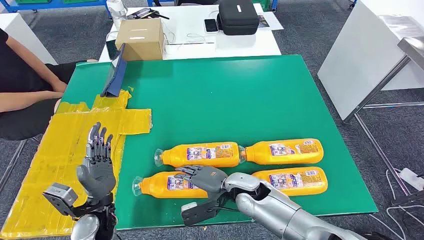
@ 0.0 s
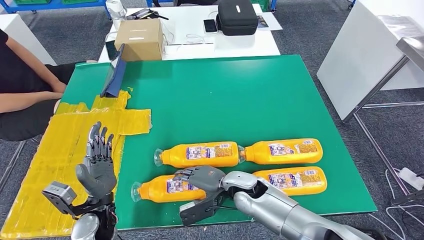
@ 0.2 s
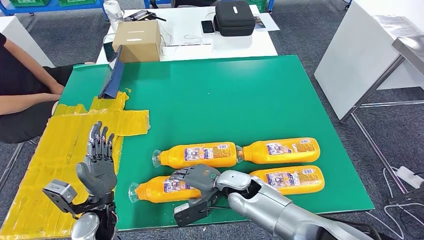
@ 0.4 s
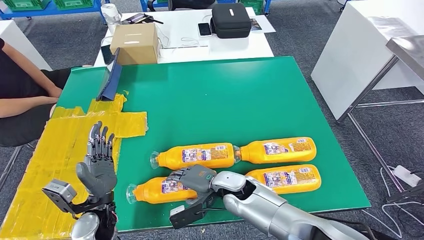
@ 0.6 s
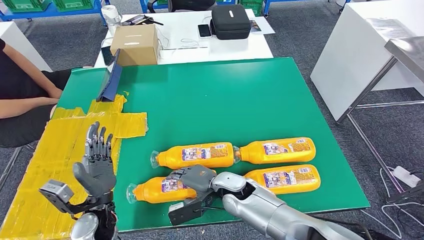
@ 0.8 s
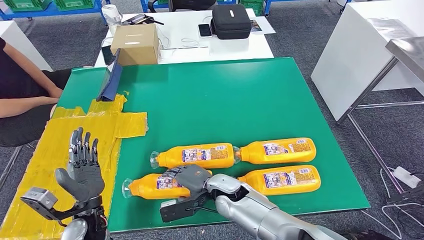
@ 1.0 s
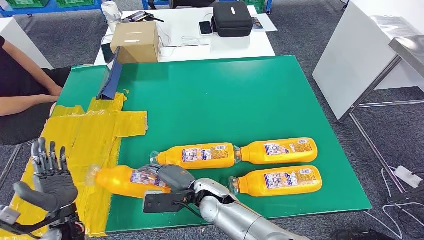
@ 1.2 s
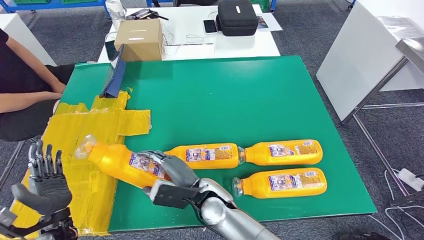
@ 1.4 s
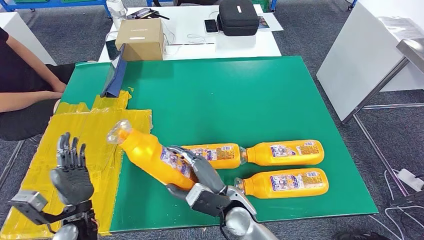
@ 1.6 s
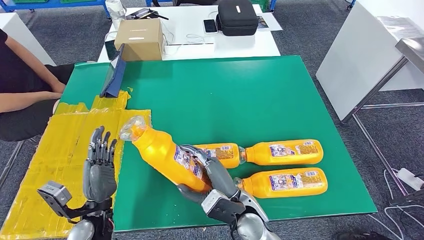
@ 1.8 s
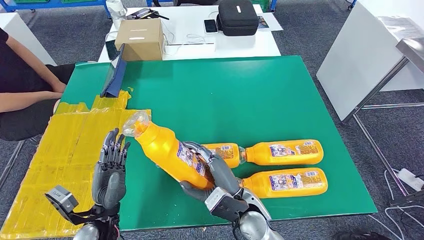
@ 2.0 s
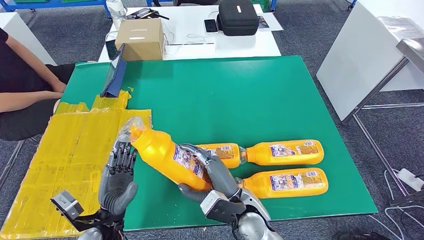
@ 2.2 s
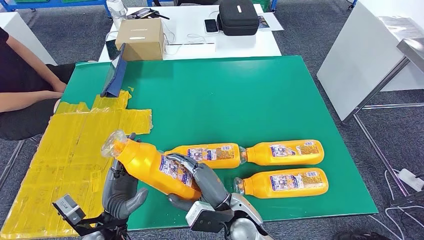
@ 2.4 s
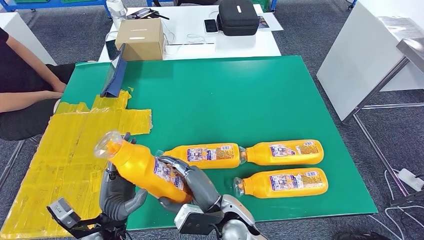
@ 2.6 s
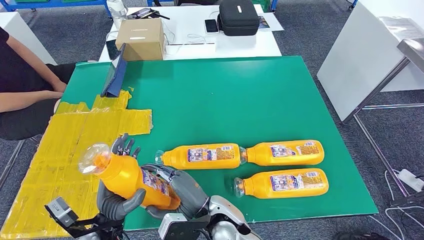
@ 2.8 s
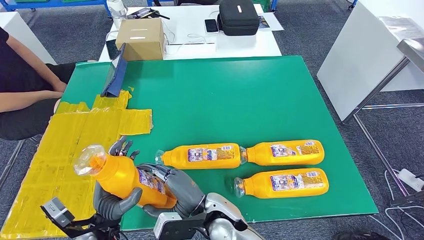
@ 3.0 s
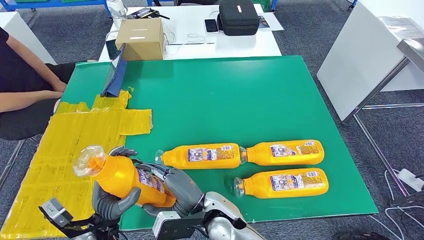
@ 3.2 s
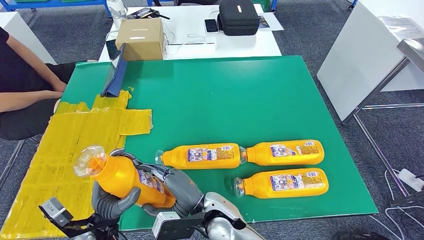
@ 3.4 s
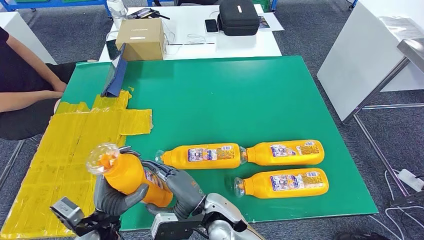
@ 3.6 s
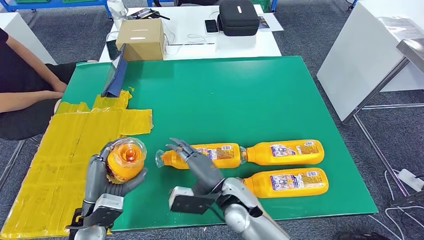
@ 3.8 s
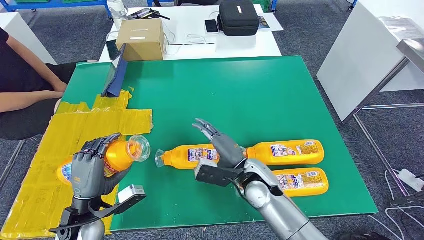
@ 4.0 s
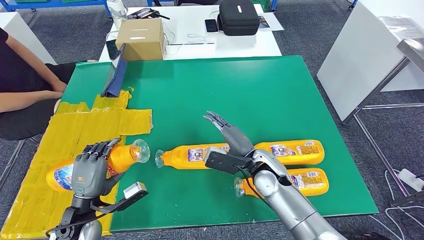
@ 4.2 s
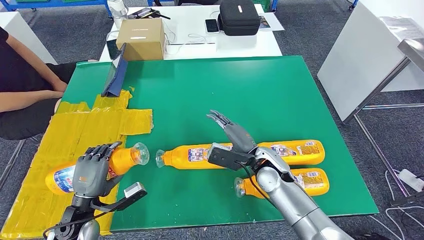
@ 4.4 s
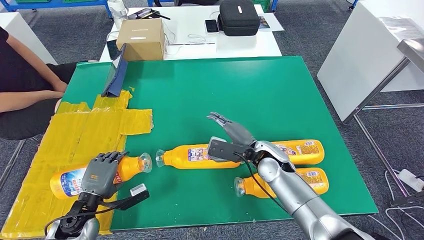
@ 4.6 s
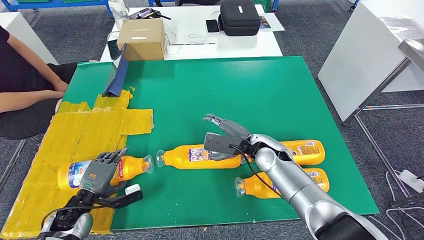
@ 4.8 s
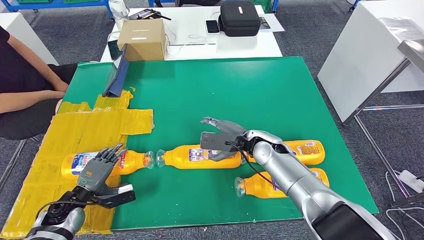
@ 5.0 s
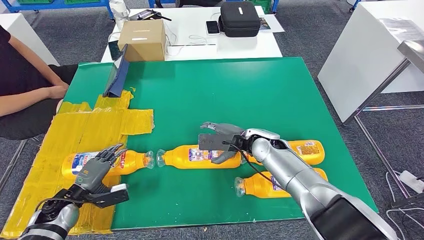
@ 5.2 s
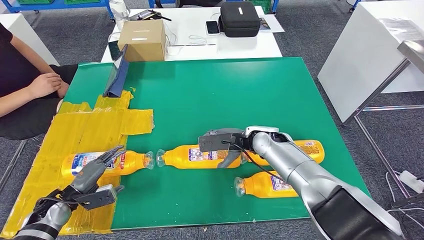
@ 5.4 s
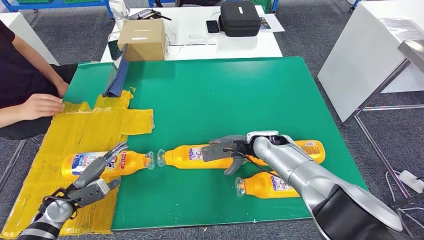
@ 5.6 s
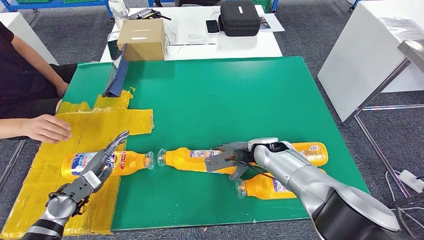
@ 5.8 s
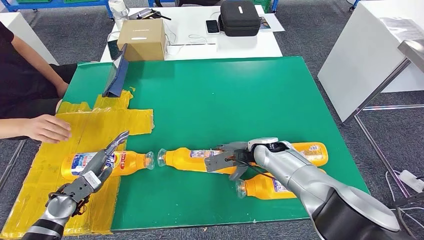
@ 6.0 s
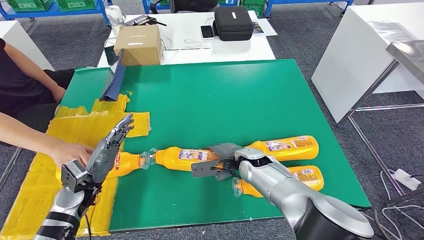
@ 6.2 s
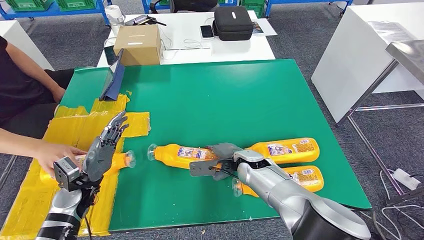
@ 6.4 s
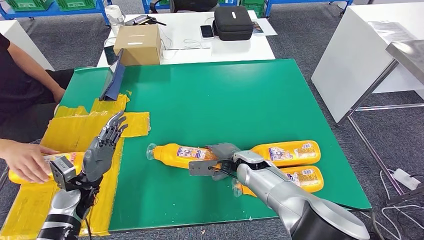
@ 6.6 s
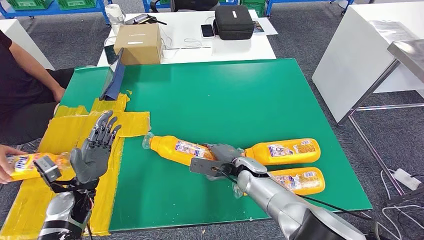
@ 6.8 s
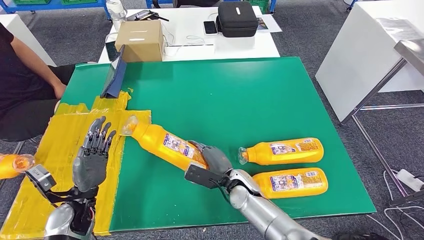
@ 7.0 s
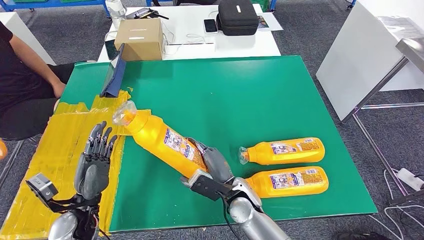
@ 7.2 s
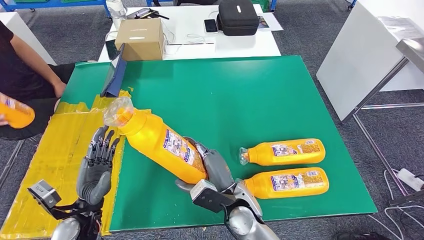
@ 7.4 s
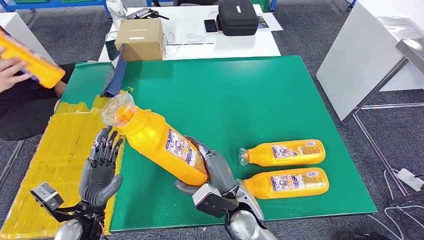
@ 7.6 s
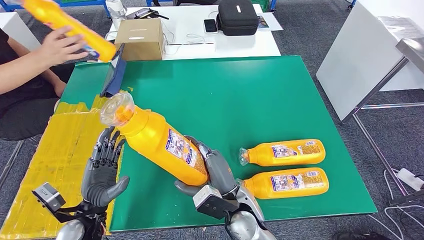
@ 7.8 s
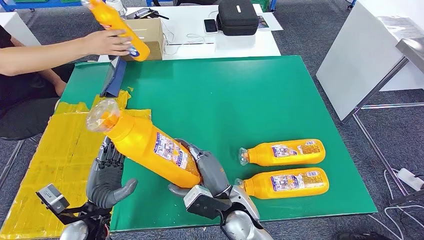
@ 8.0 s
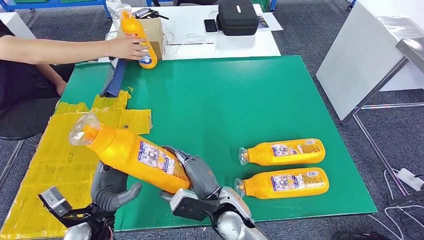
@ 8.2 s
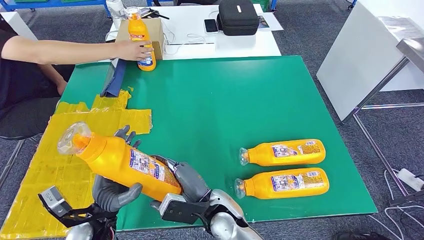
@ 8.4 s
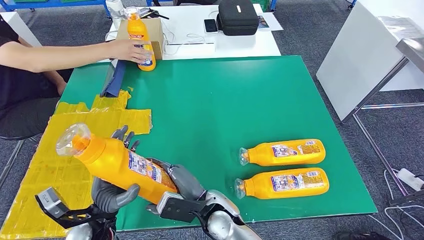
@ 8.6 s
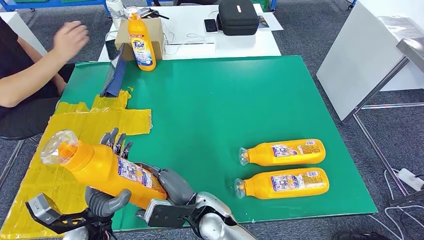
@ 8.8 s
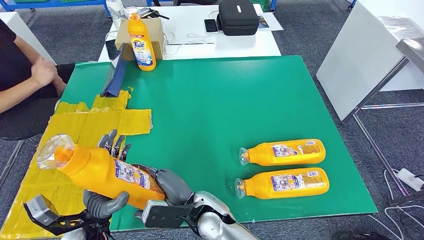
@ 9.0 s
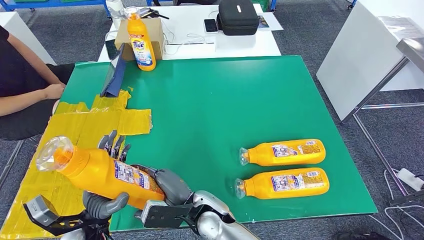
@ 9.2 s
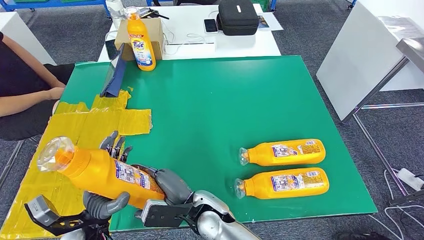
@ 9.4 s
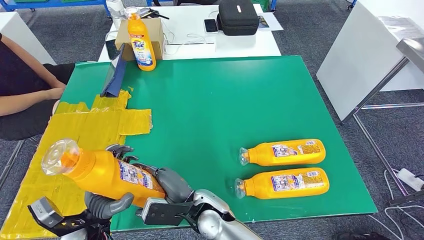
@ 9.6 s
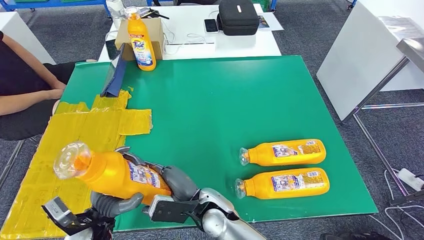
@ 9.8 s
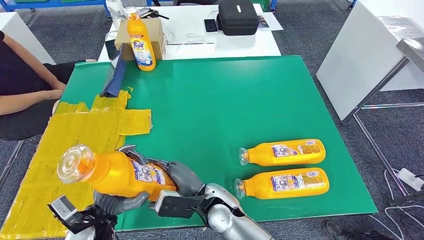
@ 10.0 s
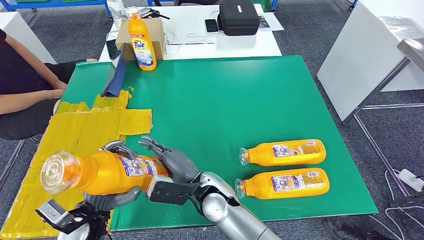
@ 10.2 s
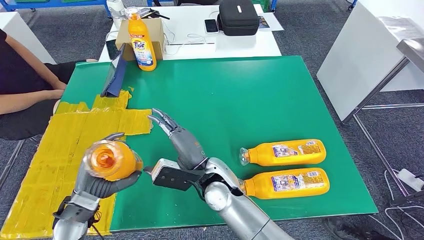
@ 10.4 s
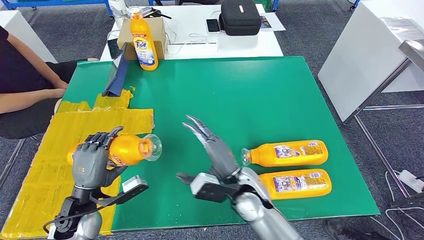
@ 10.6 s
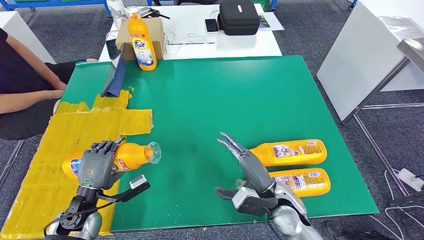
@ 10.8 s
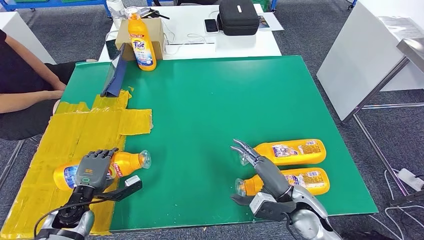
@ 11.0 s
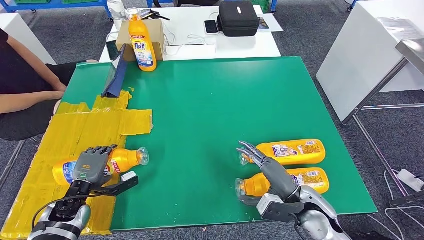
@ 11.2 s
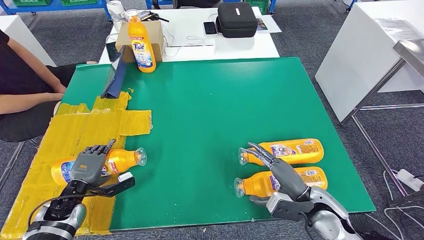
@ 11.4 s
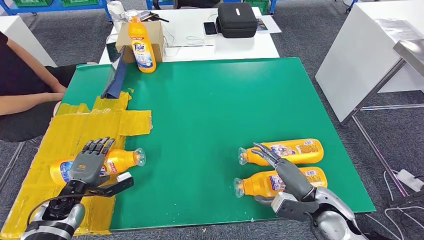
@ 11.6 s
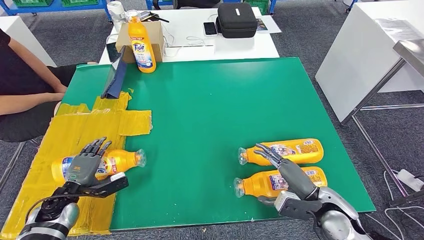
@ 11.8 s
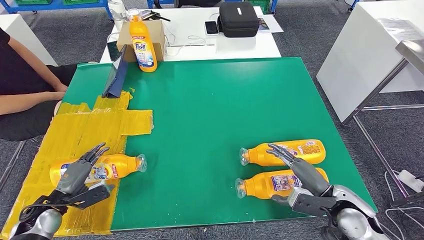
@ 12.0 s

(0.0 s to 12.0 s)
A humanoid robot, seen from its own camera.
Step, 0.0 s - 2.0 s: Take the fast-moving consumer goods bottle from the table.
Step, 2.4 s - 6.8 s: Flip the fast-moving consumer goods bottle to the front side.
Step, 7.0 s - 10.2 s: Pick up the fast-moving consumer goods bottle from the table.
1.6 s - 3.0 s: The left hand moves to the right, about 5 cm.
3.0 s - 4.4 s: The right hand is displaced to the right and forward by some 20 cm; the left hand moves to the left, about 10 cm.
7.6 s - 9.0 s: The right hand shifts some 10 cm to the left.
9.0 s - 10.4 s: The left hand ends up roughly 5 cm from where it was. The right hand travels forward and upward by about 10 cm.

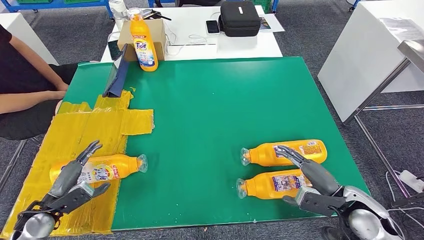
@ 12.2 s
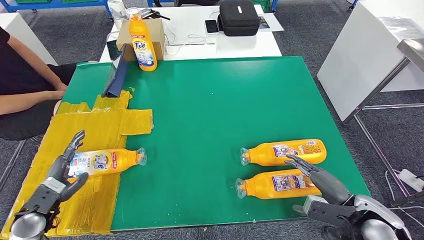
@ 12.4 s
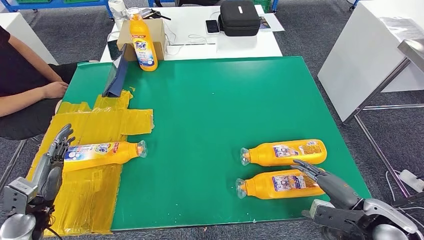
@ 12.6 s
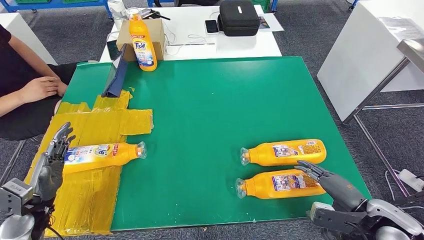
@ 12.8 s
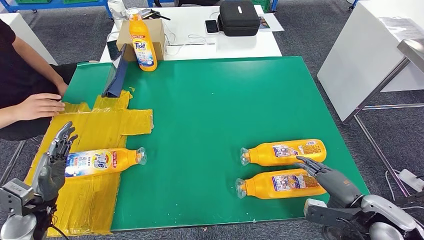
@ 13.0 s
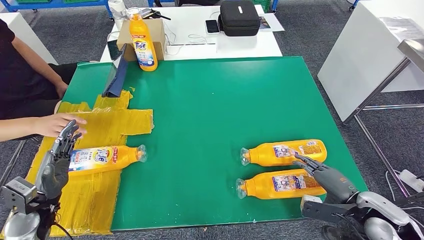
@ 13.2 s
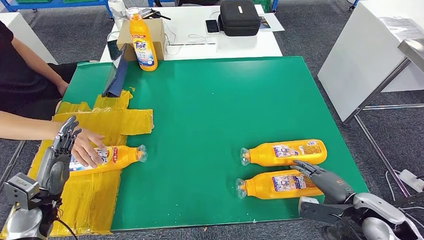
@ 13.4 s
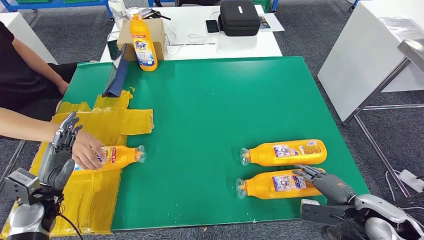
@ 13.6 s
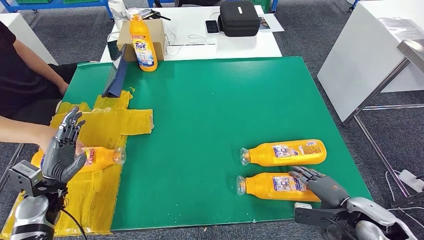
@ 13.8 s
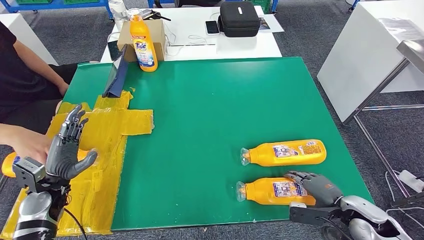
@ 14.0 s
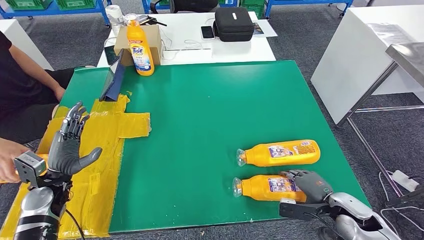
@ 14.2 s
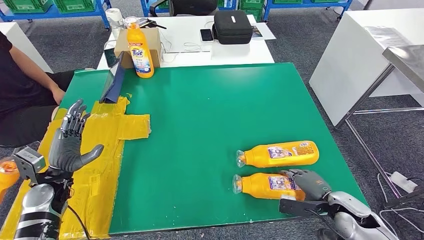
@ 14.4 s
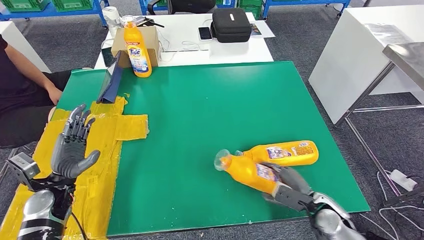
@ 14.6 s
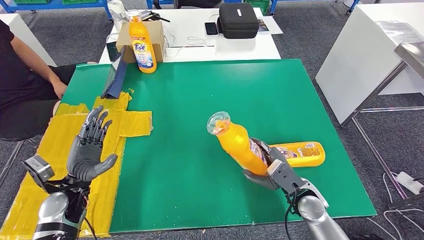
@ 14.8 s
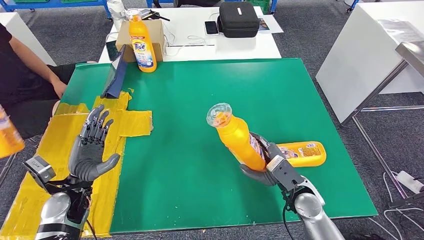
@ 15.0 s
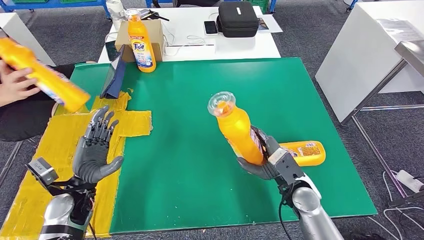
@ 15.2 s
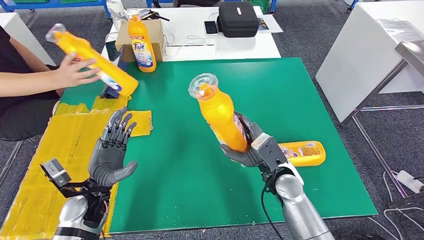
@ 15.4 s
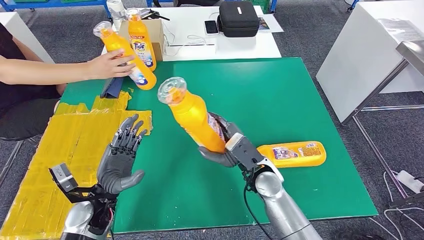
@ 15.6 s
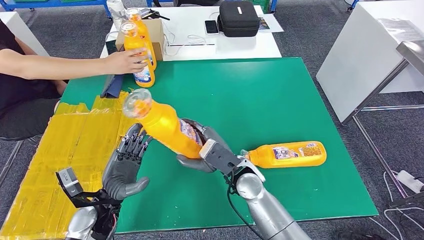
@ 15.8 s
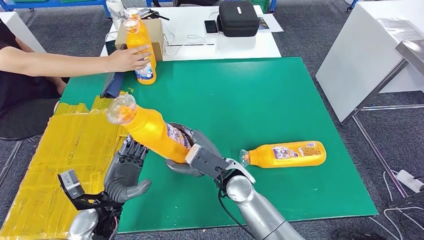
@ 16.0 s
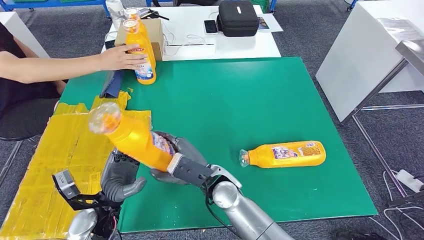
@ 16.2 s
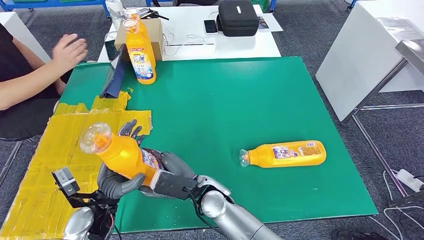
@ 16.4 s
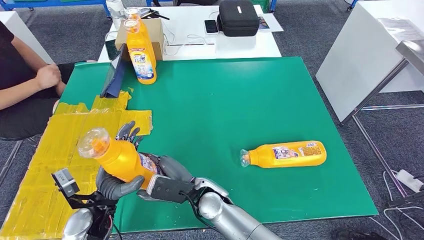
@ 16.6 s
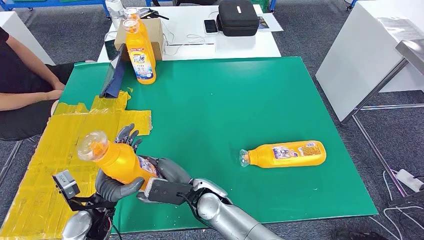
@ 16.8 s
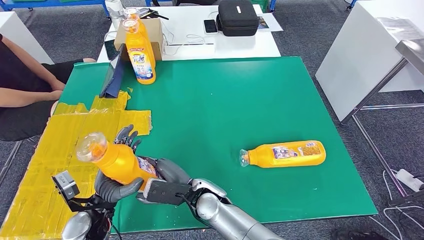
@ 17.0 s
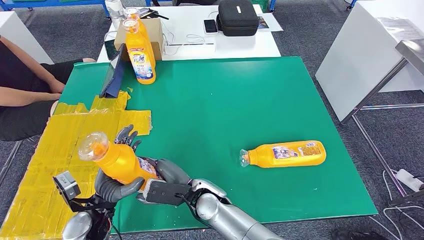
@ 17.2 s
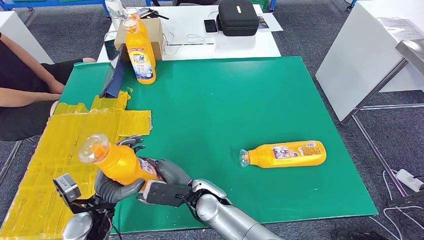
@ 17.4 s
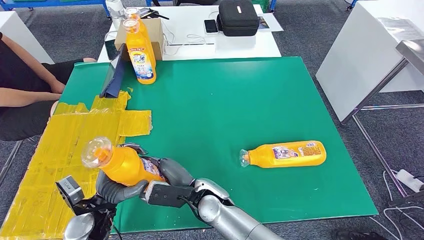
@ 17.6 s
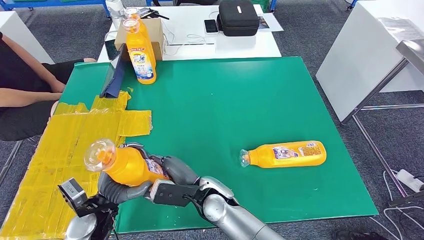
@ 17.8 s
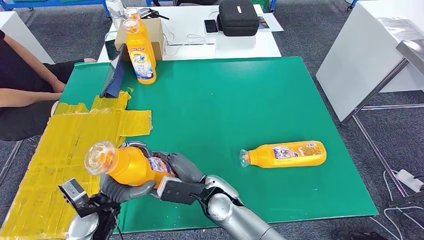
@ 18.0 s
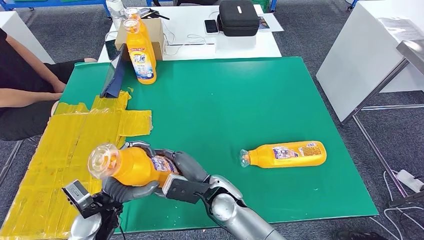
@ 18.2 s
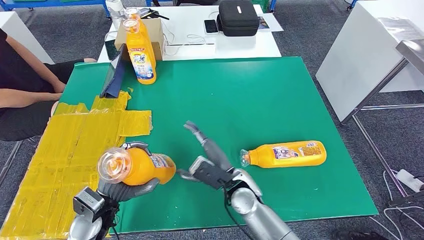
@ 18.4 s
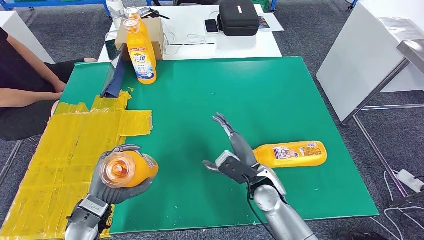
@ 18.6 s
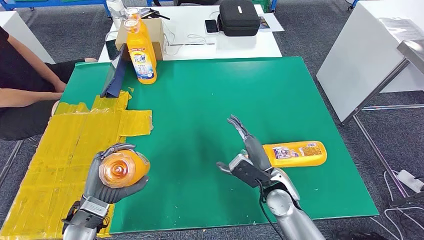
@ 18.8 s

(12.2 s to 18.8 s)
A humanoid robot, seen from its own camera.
Step, 12.2 s - 14.4 s: Flip the fast-moving consumer goods bottle to the front side.
Step, 14.6 s - 18.8 s: Pick up the fast-moving consumer goods bottle from the table.
12.2 s - 13.8 s: The right hand changes place by about 5 cm. The left hand shifts by some 5 cm.
17.2 s - 18.8 s: The right hand shifts roughly 20 cm to the right.
